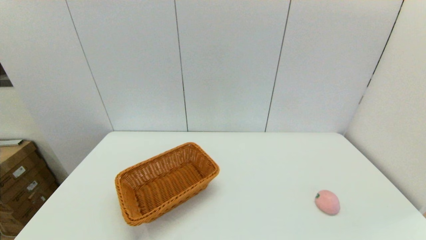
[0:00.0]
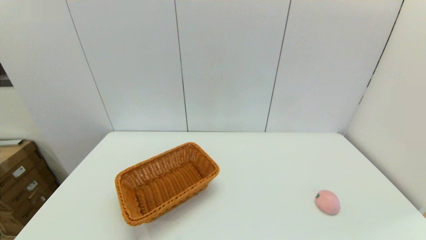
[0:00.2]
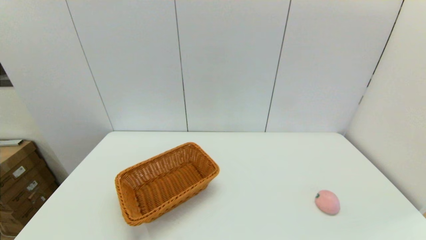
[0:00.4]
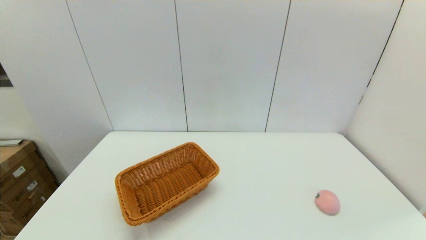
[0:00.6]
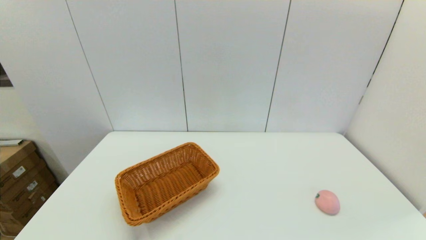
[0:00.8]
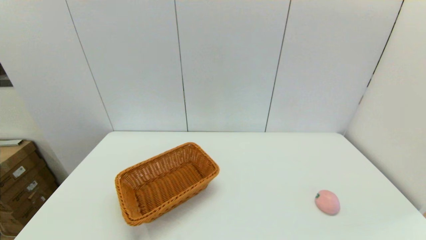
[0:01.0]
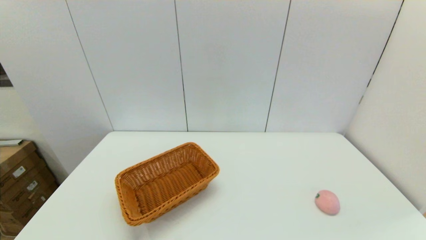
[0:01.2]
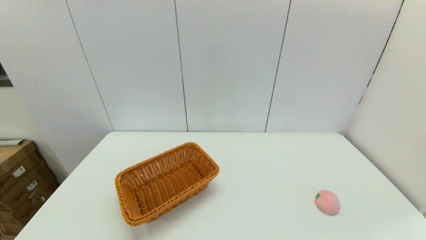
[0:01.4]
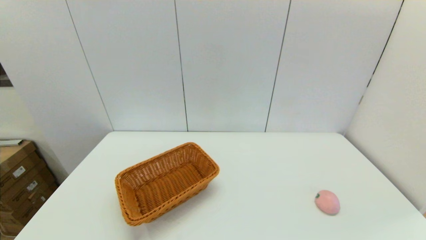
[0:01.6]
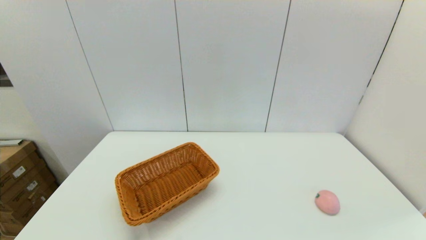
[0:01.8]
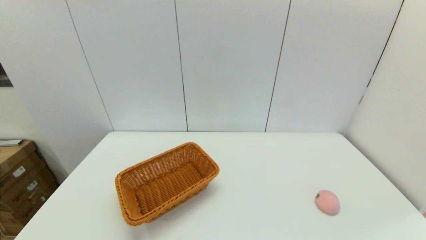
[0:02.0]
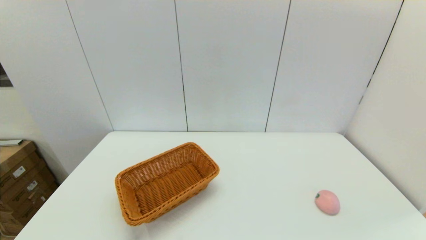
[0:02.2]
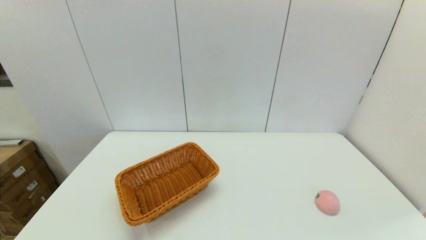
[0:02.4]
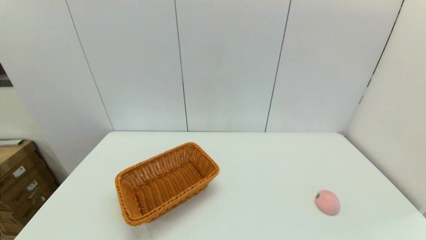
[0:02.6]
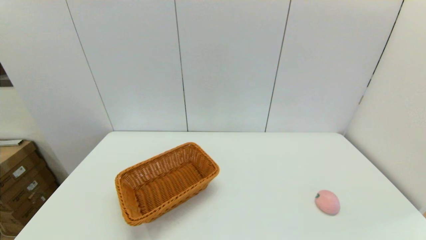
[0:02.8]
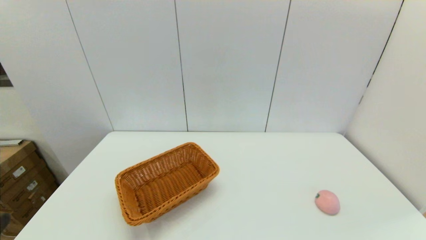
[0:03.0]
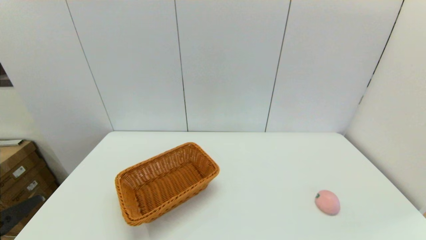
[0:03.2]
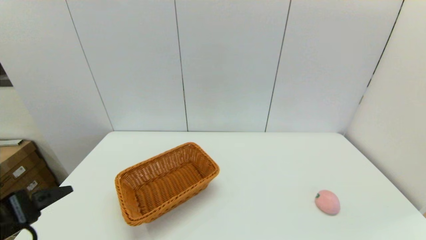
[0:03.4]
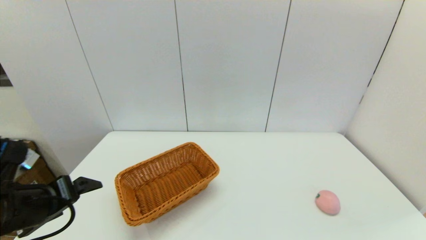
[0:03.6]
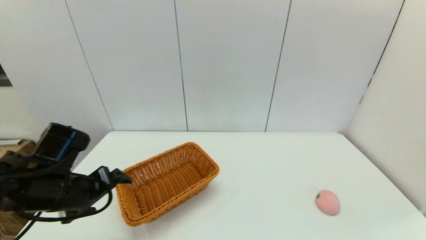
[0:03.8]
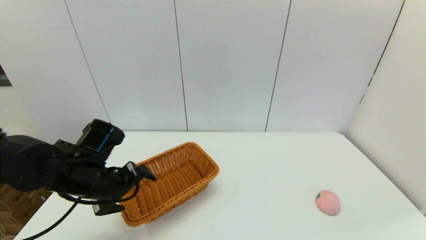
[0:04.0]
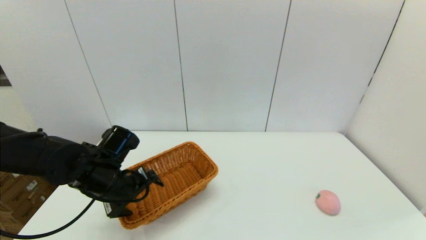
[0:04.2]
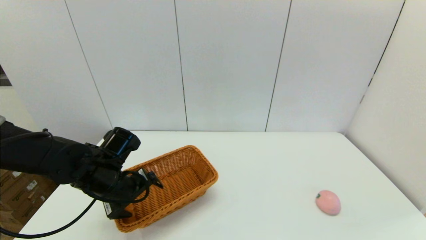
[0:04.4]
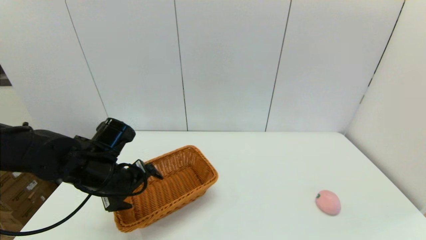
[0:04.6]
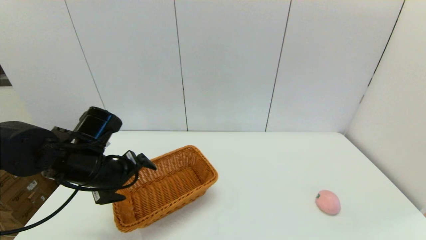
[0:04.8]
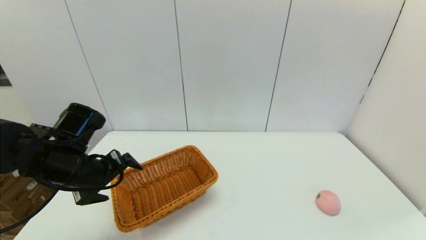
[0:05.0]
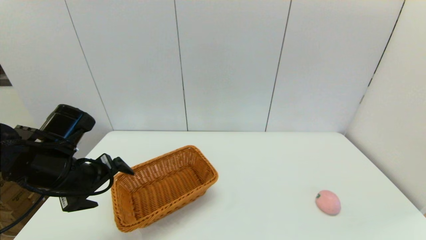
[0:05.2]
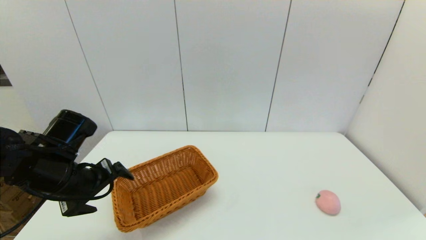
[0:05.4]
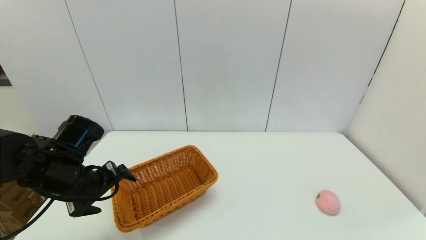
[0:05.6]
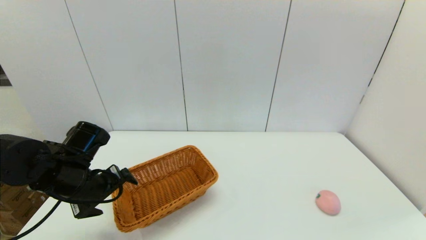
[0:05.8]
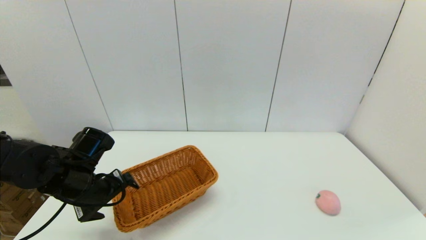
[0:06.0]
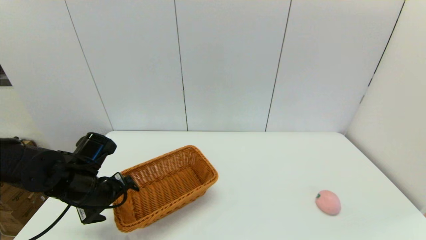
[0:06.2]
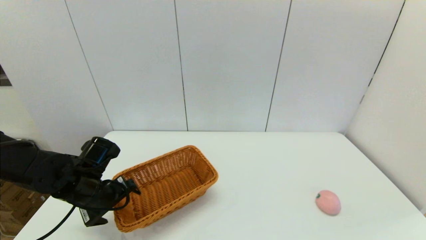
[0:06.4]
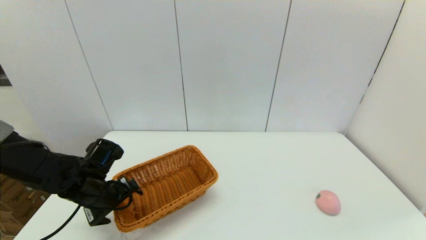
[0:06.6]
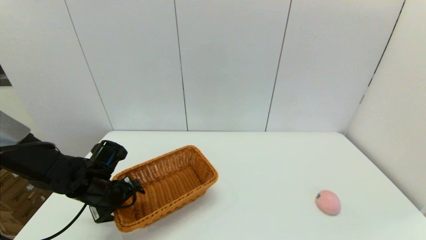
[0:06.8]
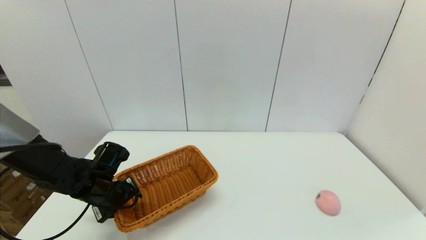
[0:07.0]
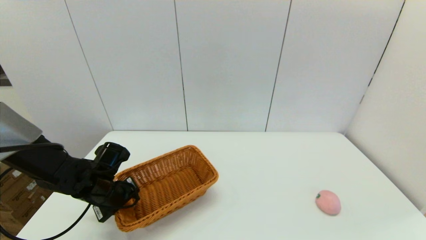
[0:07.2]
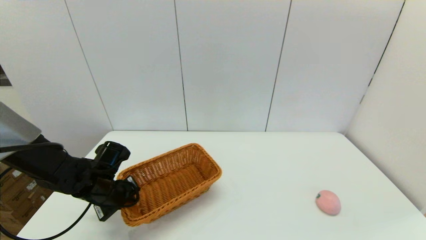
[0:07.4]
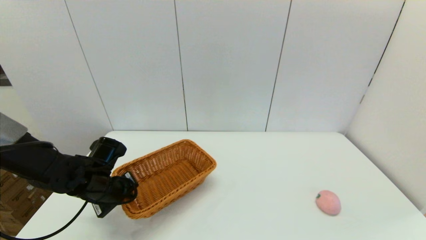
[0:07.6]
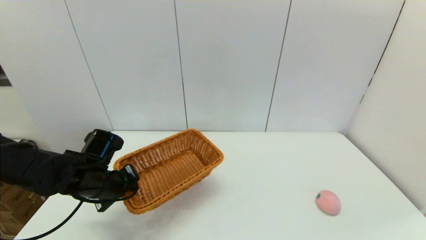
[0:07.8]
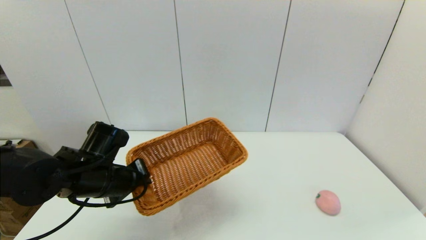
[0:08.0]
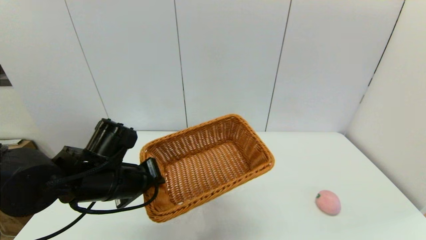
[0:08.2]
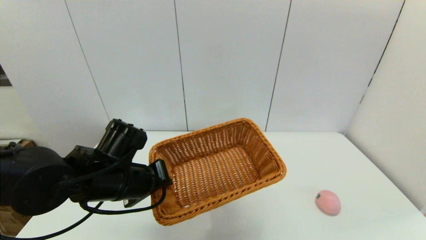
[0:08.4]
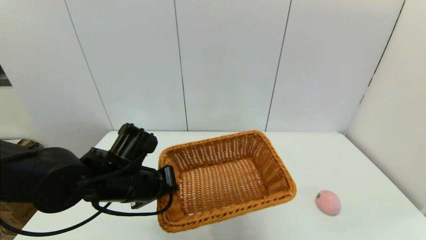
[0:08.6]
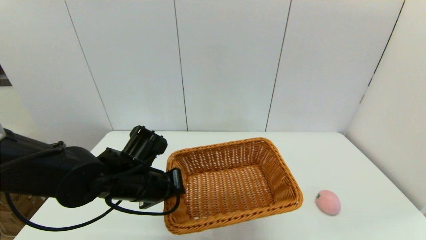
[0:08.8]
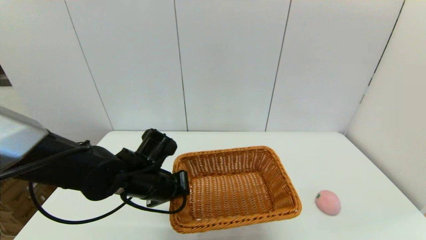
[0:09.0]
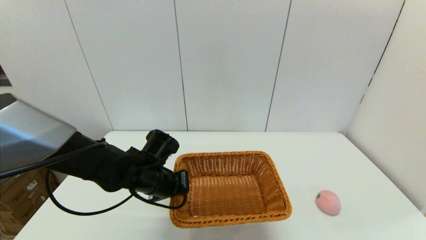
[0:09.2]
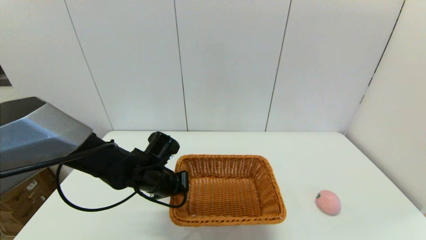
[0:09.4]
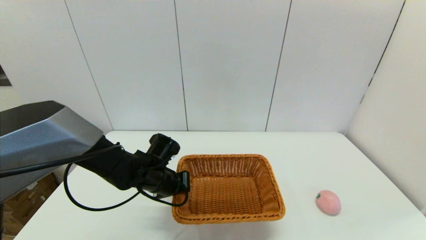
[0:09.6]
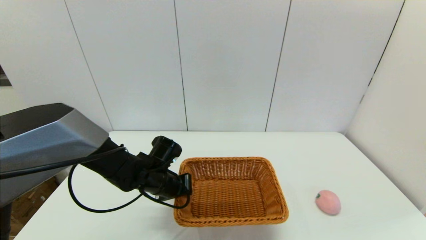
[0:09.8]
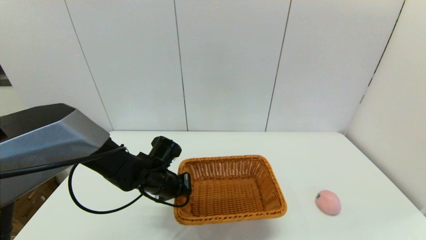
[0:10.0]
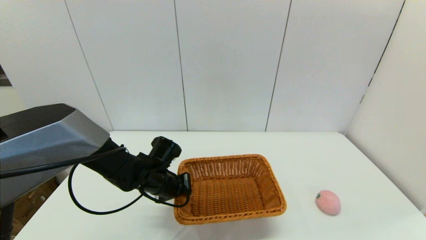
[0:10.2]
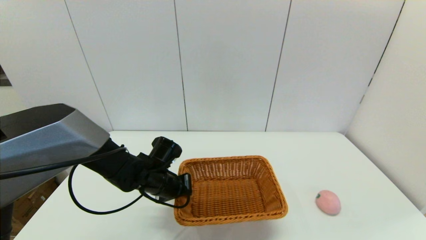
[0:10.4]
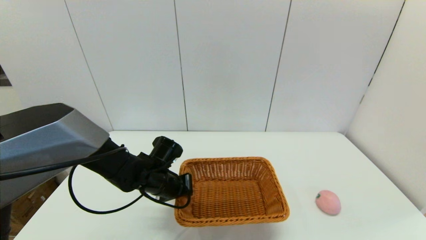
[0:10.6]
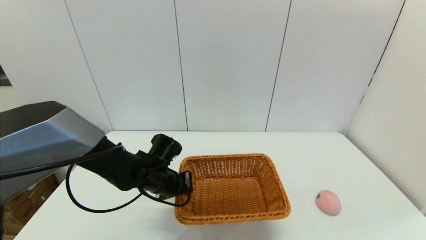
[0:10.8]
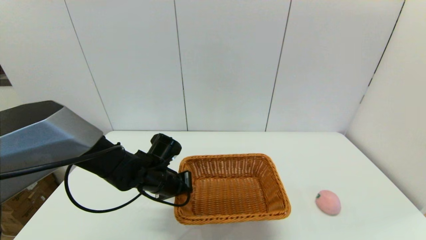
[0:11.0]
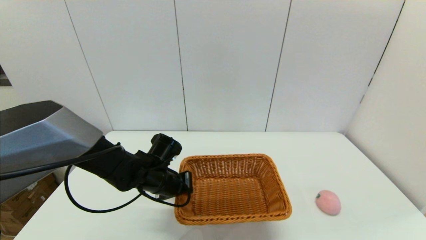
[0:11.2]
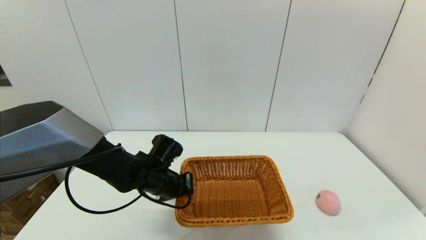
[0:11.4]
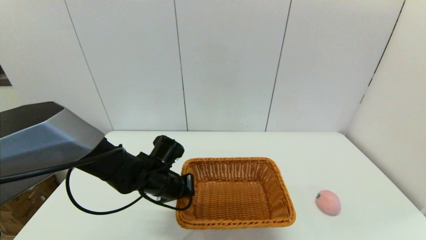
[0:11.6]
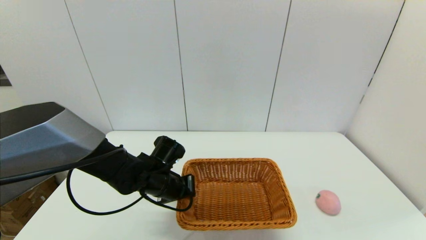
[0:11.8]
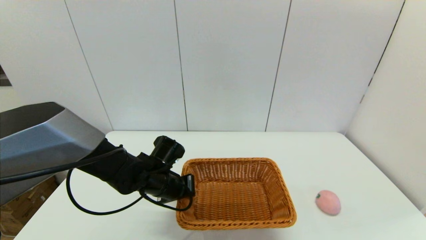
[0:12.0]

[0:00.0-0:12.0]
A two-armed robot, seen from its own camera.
Step, 0.0 to 7.4 s: Grasp the light basket with the left gripper.
0.0 to 1.6 s: Both grippers stay about where they are.
3.0 to 4.4 s: The left gripper is displaced forward by about 25 cm.
6.0 to 7.6 s: The left gripper closes its fingers.
7.6 to 9.0 s: The left gripper moves to the right, approximately 10 cm.
9.0 to 10.4 s: The left gripper is displaced downward by about 5 cm.
10.4 to 12.0 s: The grippers move only a little.

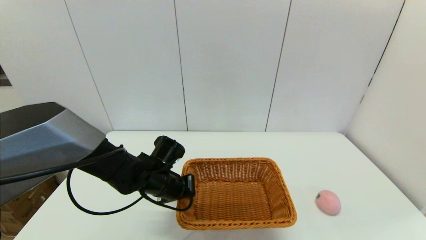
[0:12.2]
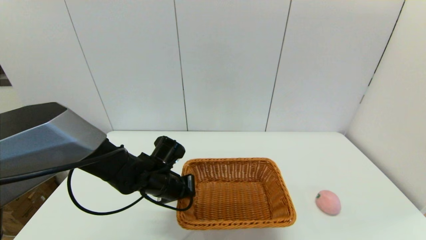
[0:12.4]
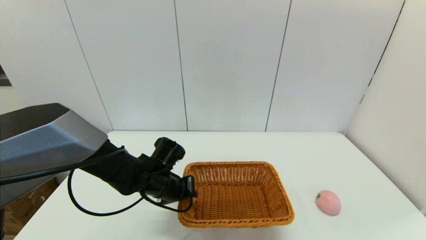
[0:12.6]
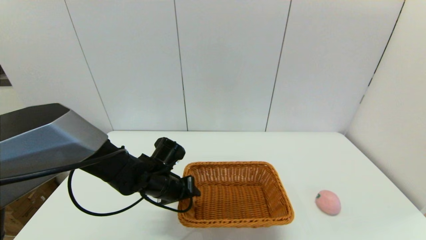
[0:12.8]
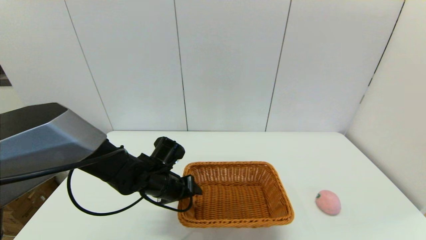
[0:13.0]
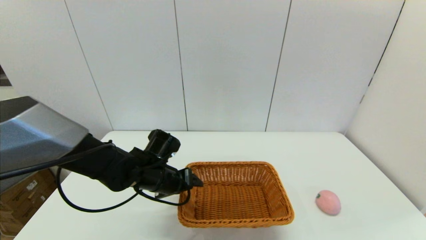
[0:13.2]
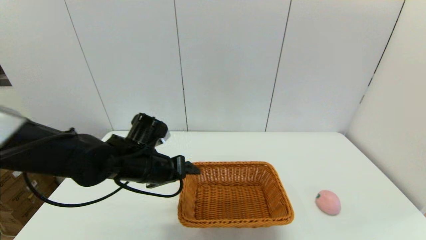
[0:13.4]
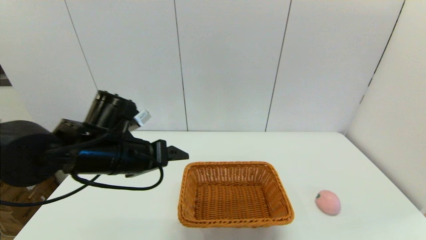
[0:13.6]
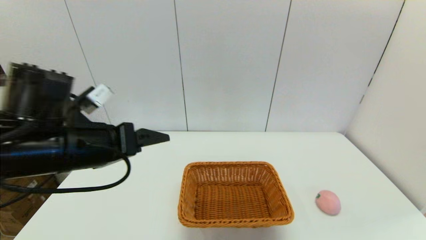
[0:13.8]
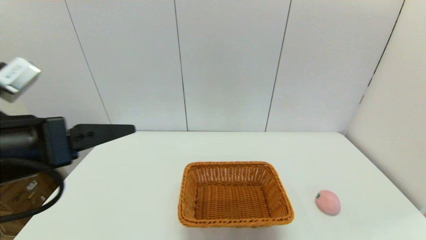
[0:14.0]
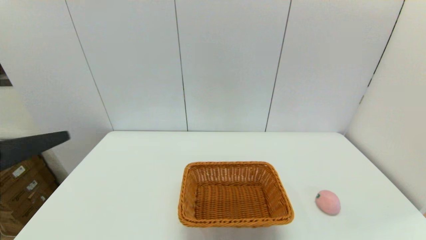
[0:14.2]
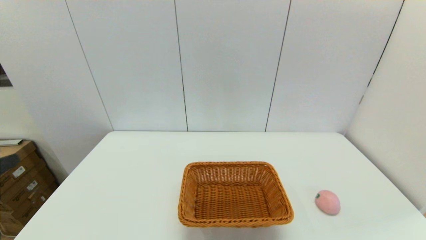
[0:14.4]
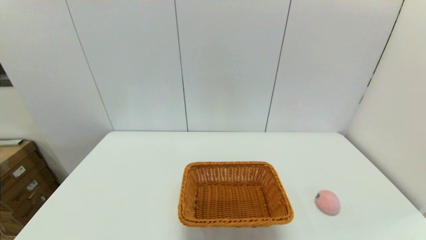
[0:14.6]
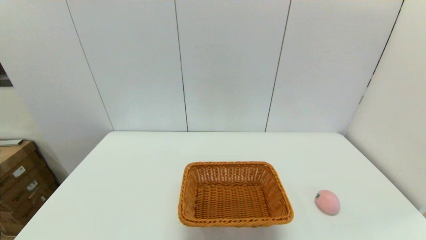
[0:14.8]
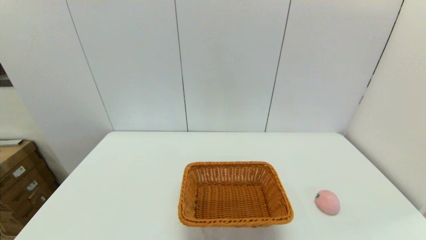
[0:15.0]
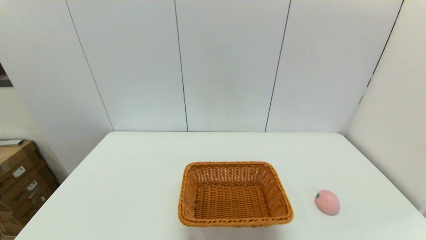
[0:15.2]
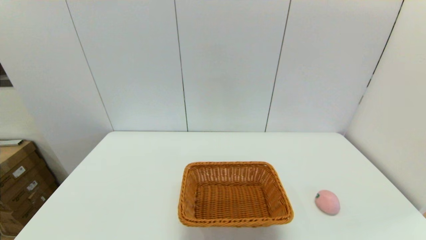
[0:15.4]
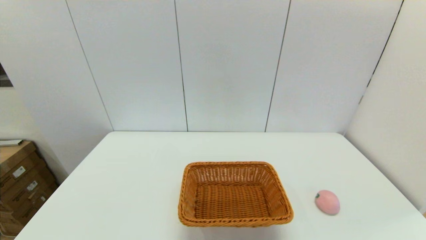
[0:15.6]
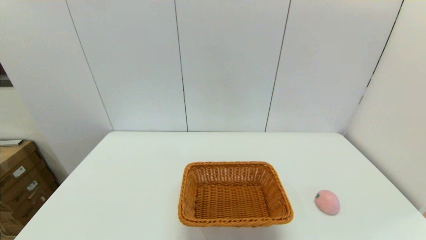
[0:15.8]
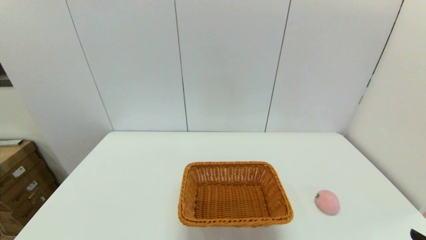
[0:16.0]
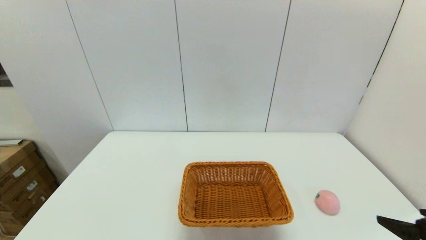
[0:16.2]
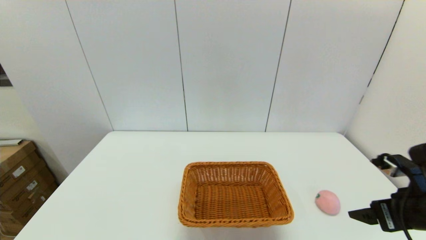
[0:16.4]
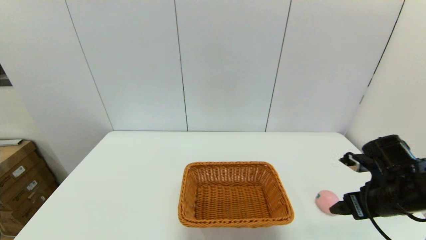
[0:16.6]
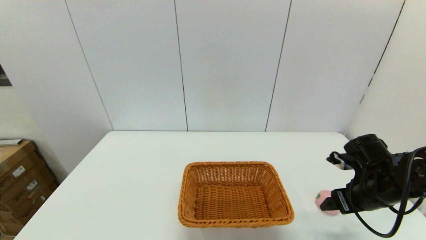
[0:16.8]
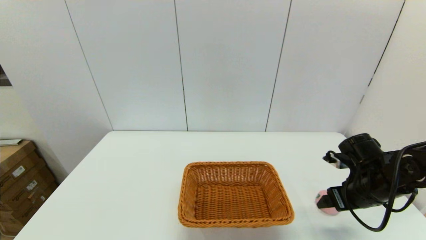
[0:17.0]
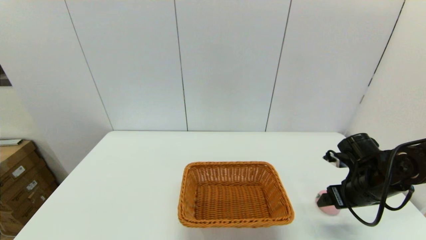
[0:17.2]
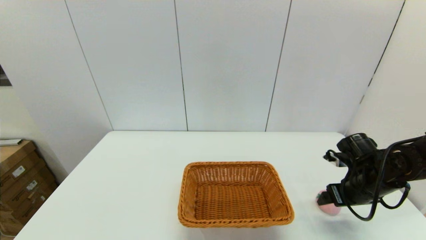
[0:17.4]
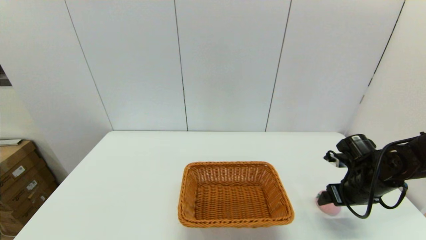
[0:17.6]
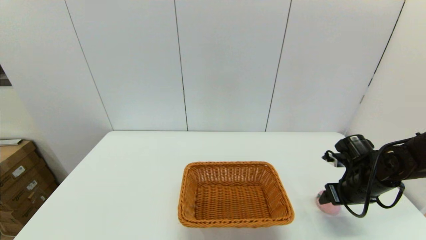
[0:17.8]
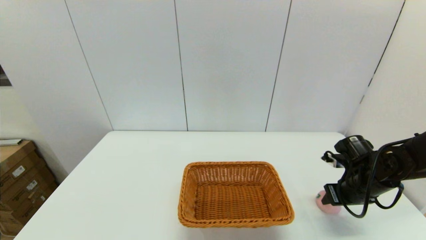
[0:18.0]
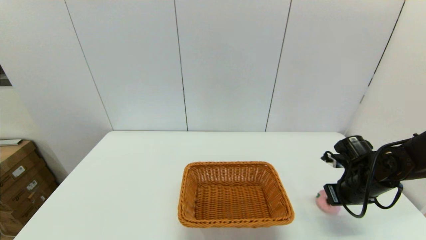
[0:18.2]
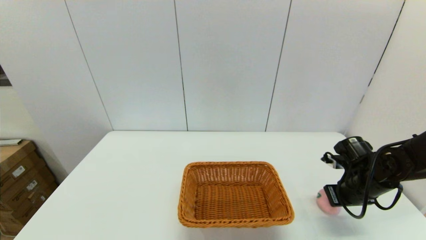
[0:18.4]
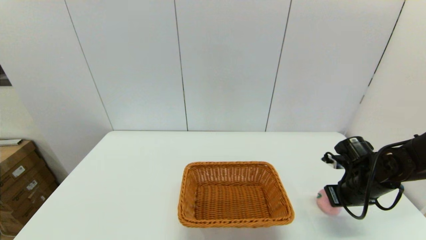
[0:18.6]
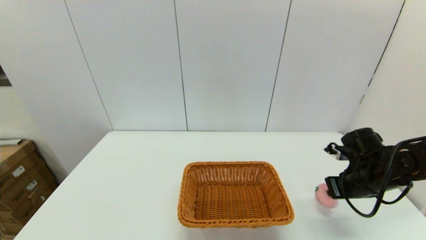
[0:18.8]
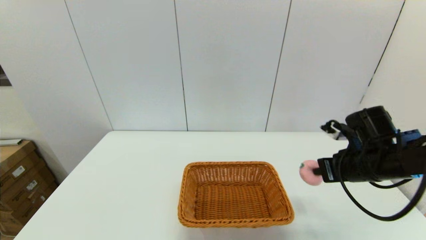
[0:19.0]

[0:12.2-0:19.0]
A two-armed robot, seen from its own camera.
Step, 12.8 to 18.4 s: Grasp the peach with the right gripper.
12.2 to 13.6 s: The left gripper travels upward by roughly 15 cm, and opens up.
13.6 to 15.0 s: The left gripper goes about 30 cm backward and to the left.
15.0 to 16.2 s: The right gripper shifts about 15 cm forward and upward.
16.2 to 17.6 s: The right gripper moves forward and downward, some 20 cm.
17.6 to 19.0 s: The right gripper heads upward and to the left, covering about 10 cm, and closes its fingers.
